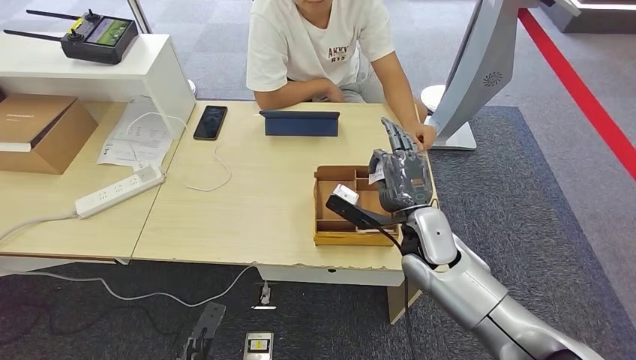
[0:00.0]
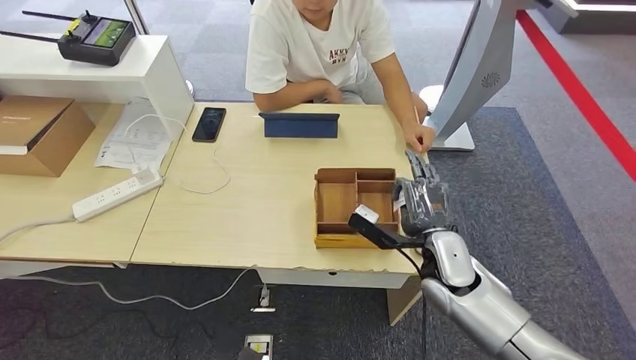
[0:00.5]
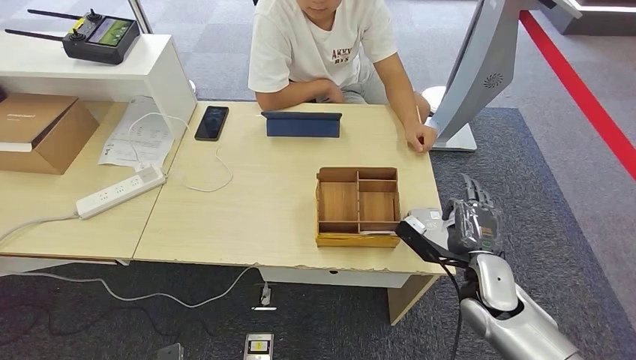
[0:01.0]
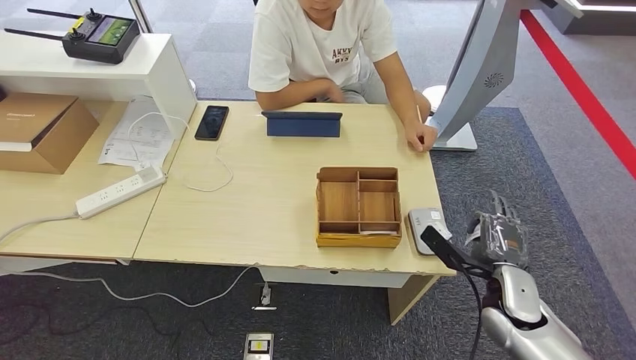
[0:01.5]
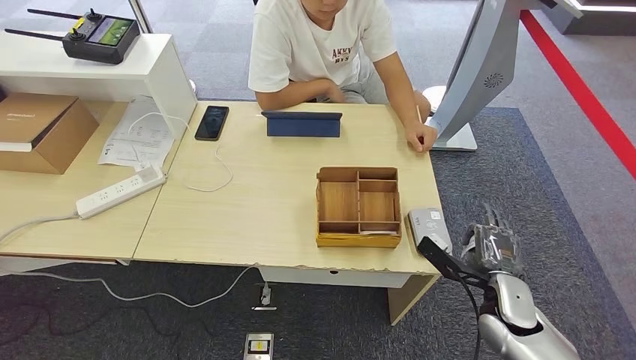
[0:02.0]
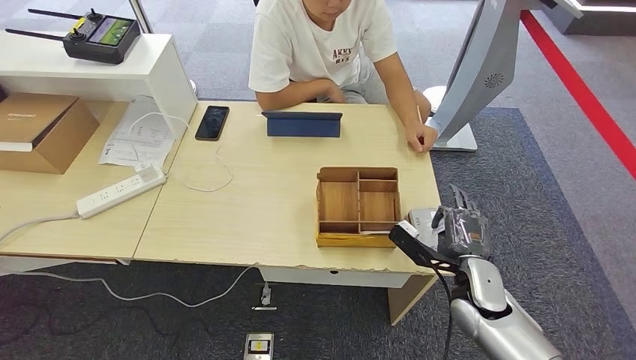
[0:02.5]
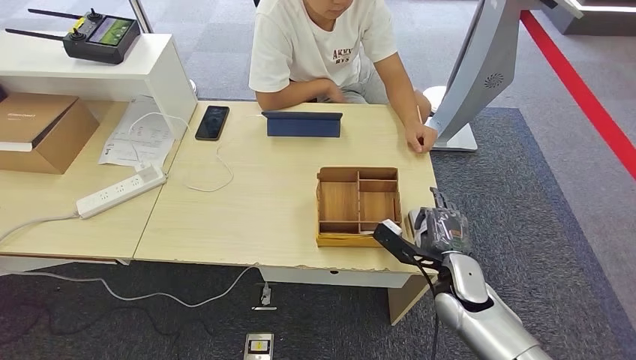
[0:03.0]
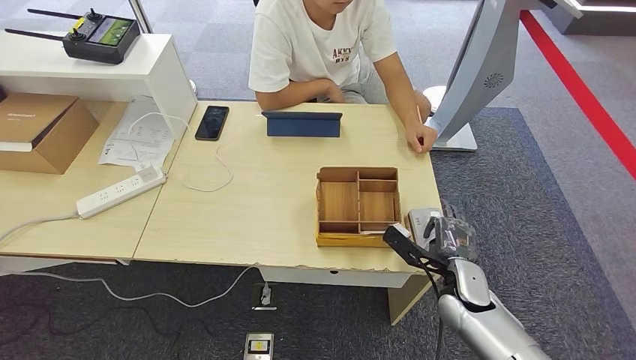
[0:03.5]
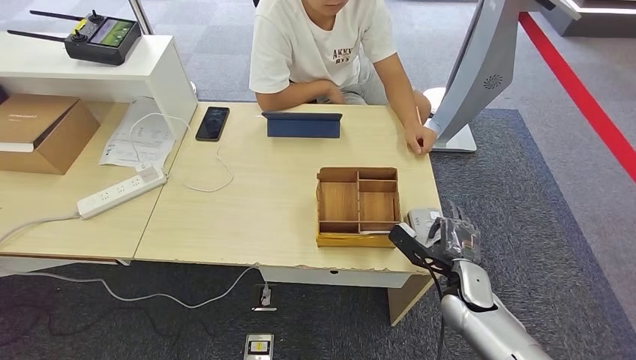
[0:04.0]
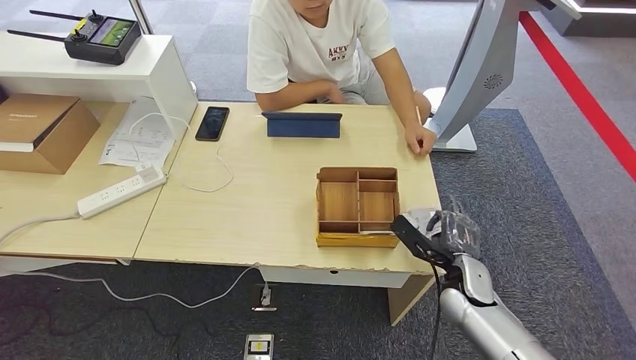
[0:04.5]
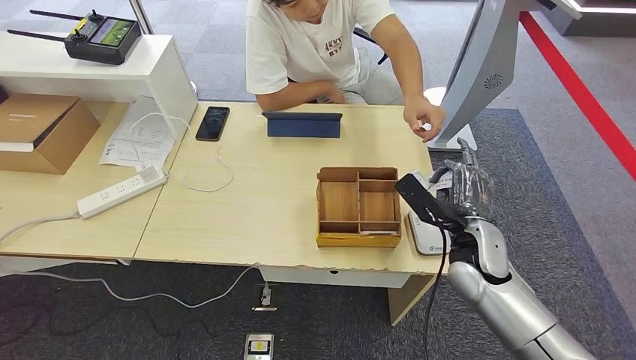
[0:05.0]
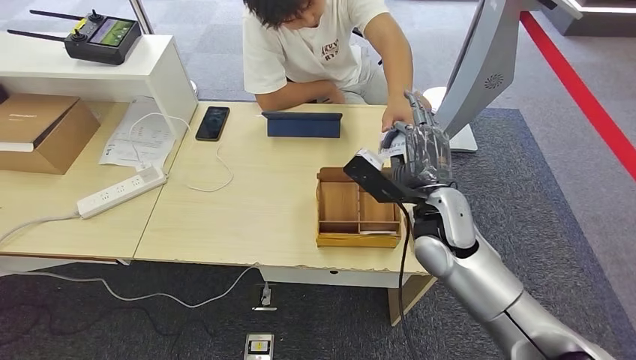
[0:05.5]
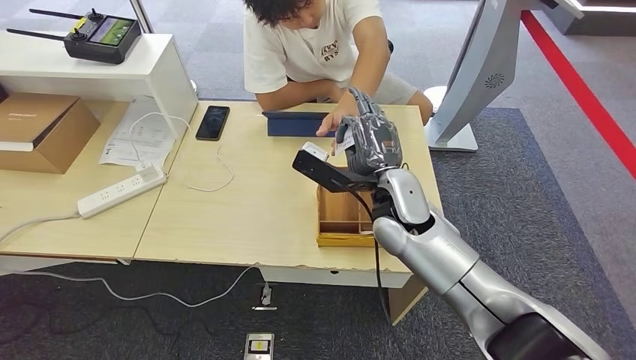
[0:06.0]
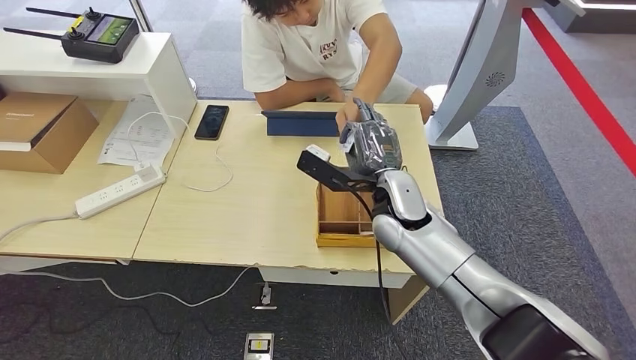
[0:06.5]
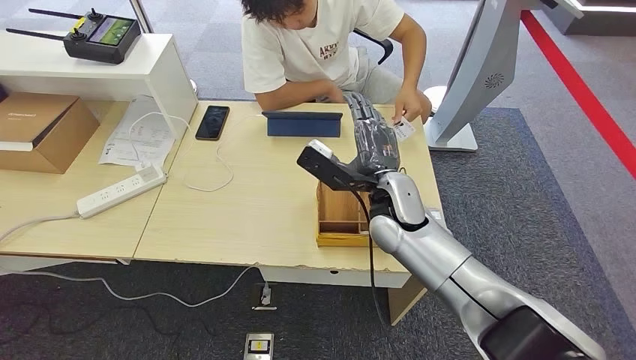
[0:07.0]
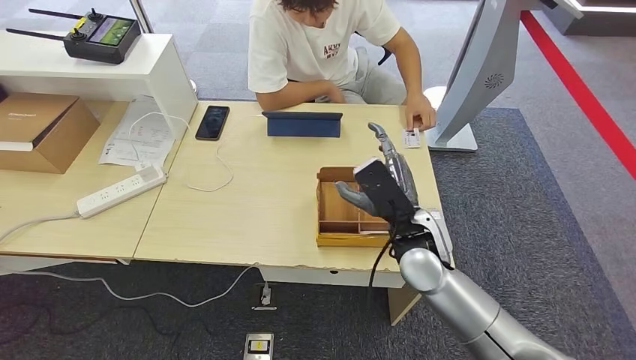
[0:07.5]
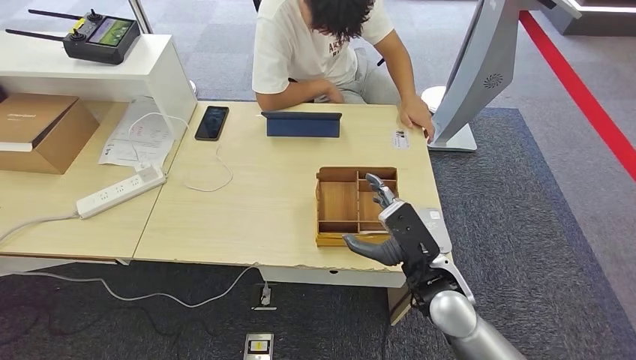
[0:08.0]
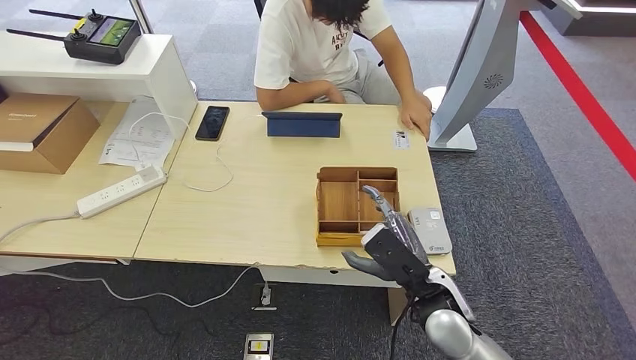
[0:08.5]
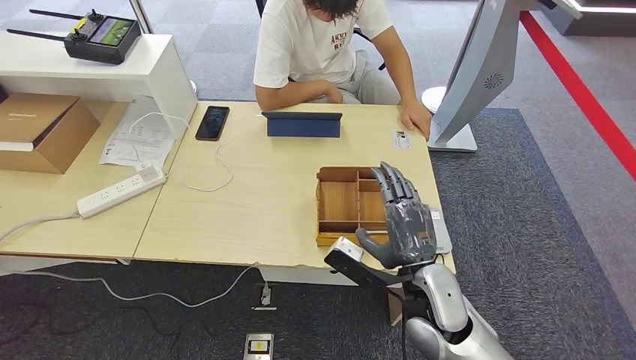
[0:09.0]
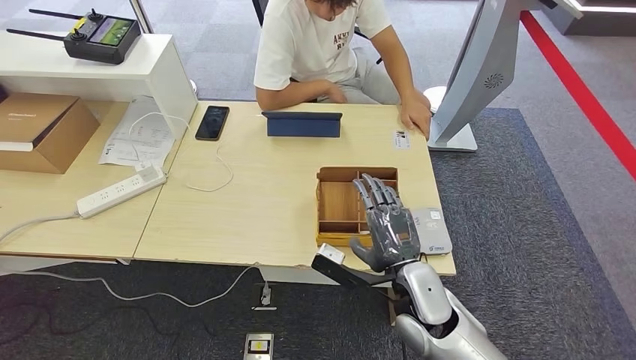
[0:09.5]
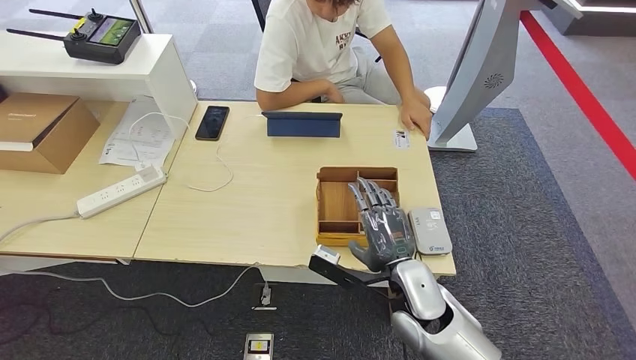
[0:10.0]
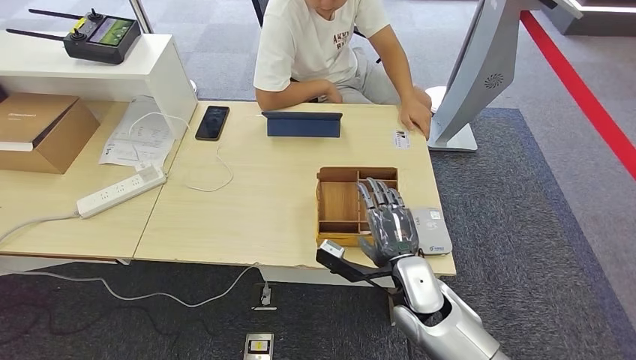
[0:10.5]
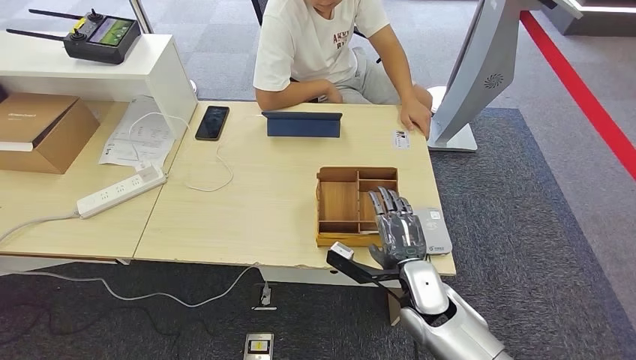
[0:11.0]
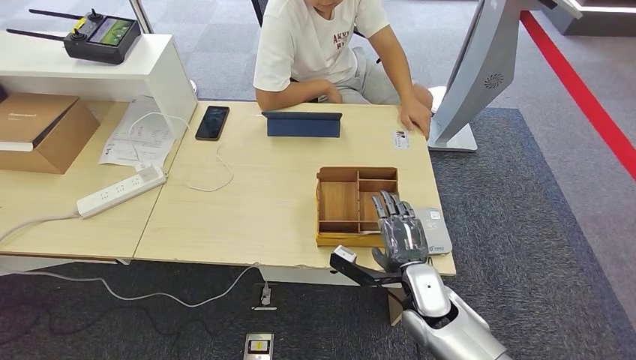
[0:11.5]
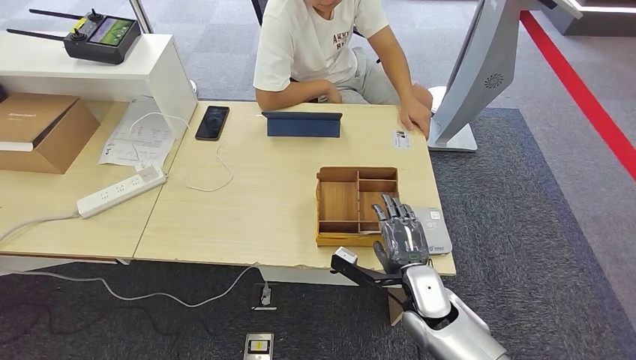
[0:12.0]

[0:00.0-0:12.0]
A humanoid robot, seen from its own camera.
Step, 0:00.0 to 0:05.0: Place the ID card on the card reader.
Step, 0:05.5 to 0:07.5: Hand the ID card to the person.
0:00.0 to 0:02.0: The right hand goes about 20 cm to the right, backward and downward. The left hand moves backward, roughly 10 cm.
0:02.0 to 0:04.0: The right hand shifts by about 5 cm.
0:04.0 to 0:06.0: The right hand heads upward, to the left and forward, covering roughly 25 cm.
0:06.0 to 0:08.0: The right hand heads backward, downward and to the right, covering about 15 cm.
0:10.0 to 0:12.0: The right hand moves roughly 5 cm.

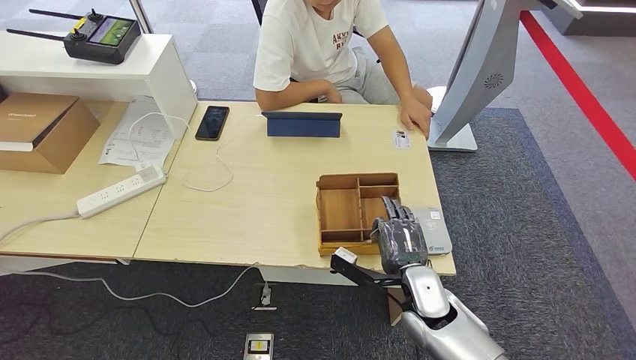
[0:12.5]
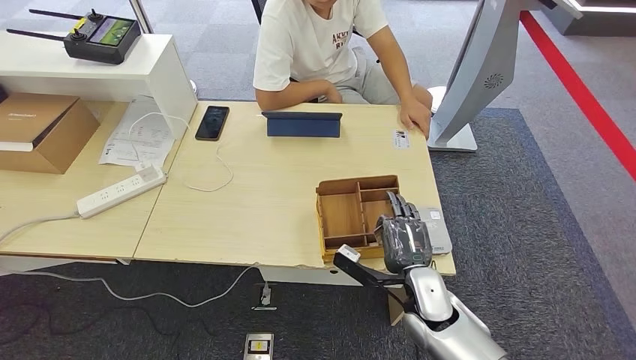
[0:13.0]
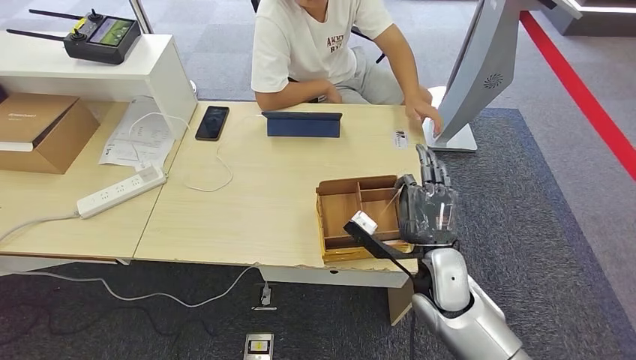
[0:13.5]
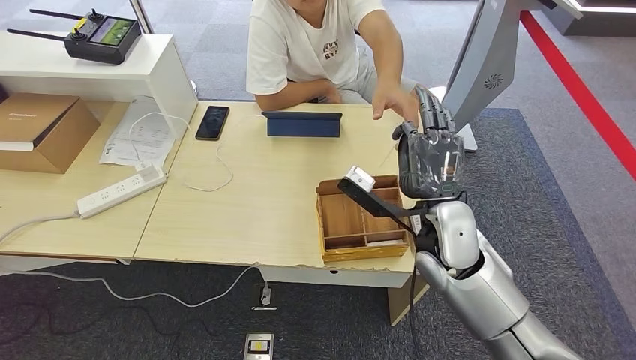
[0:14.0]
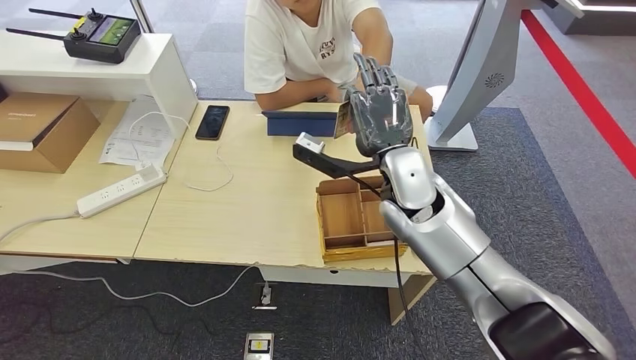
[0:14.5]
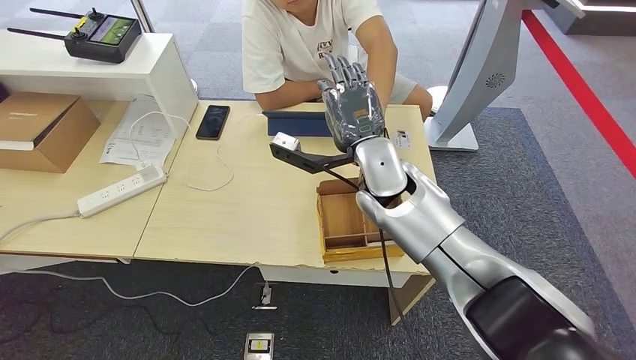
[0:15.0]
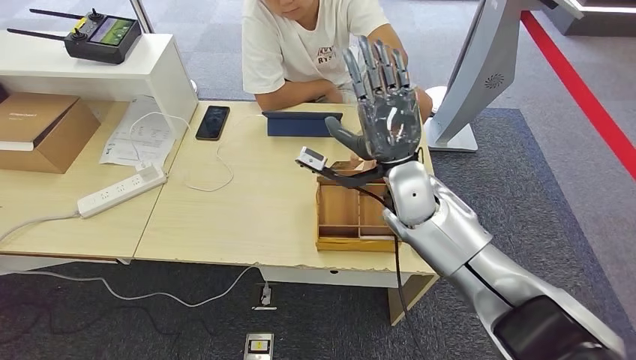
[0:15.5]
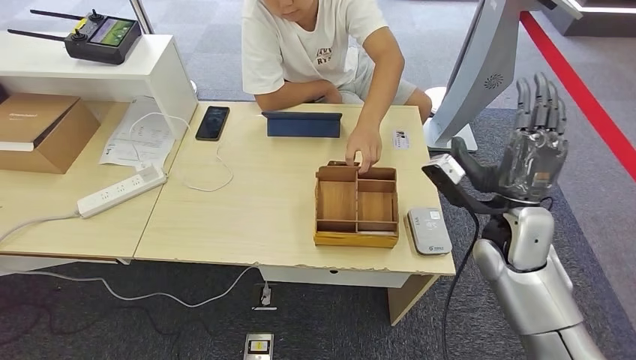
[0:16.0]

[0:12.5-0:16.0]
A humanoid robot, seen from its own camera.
Step, 0:14.0 to 0:16.0: Hand the room key to the person.
0:12.5 to 0:14.5: The right hand travels upward and forward by about 25 cm.
0:14.5 to 0:16.0: The right hand travels to the right and backward by about 15 cm.
